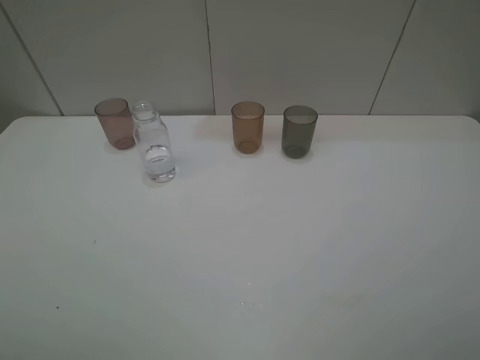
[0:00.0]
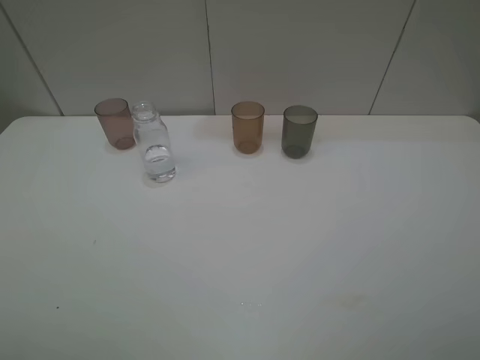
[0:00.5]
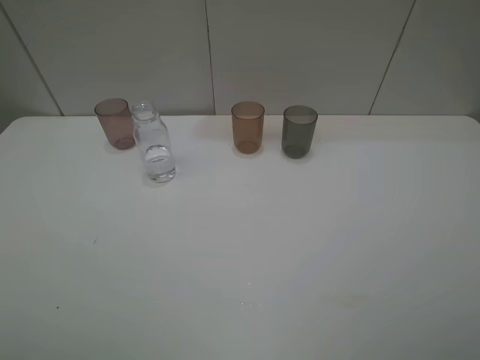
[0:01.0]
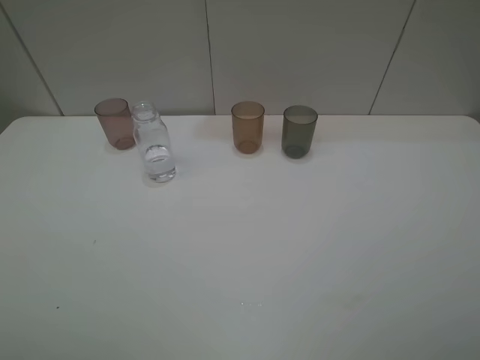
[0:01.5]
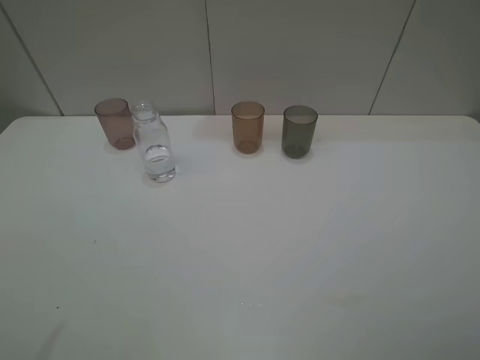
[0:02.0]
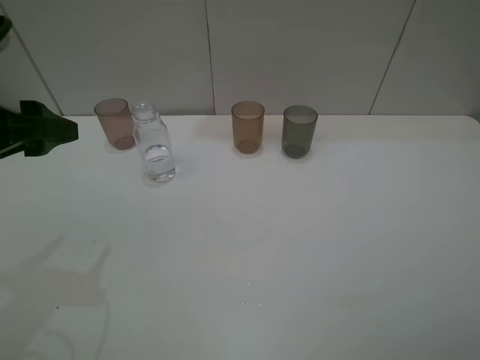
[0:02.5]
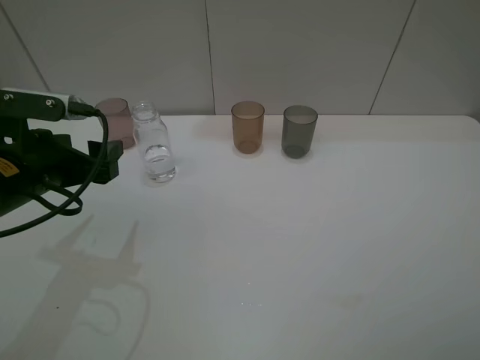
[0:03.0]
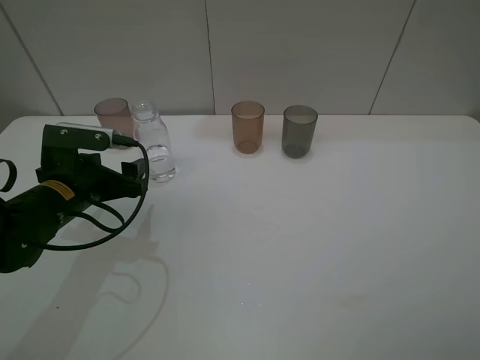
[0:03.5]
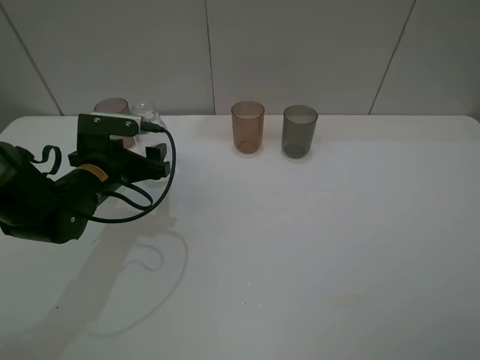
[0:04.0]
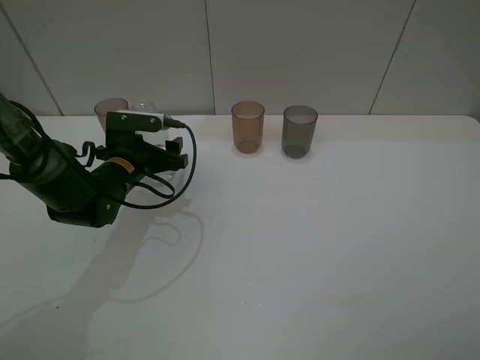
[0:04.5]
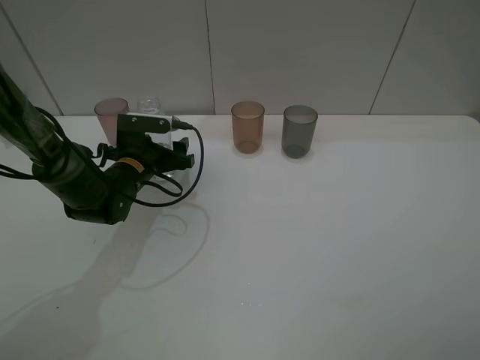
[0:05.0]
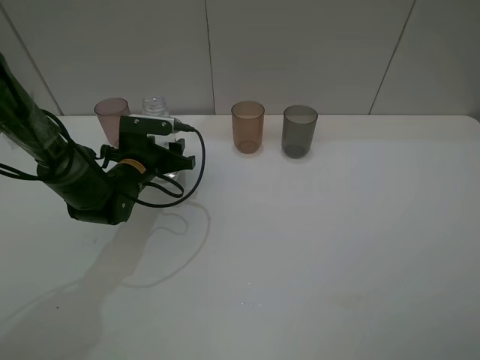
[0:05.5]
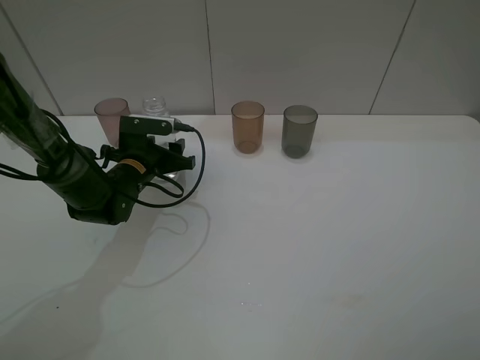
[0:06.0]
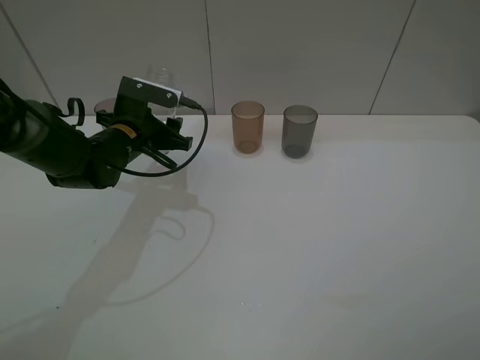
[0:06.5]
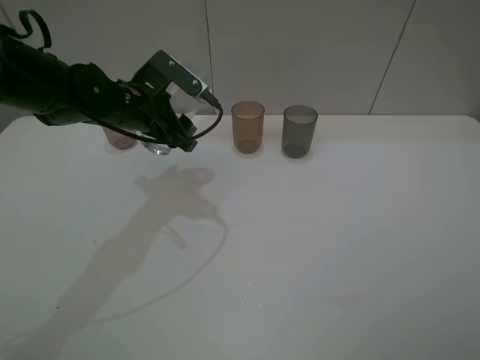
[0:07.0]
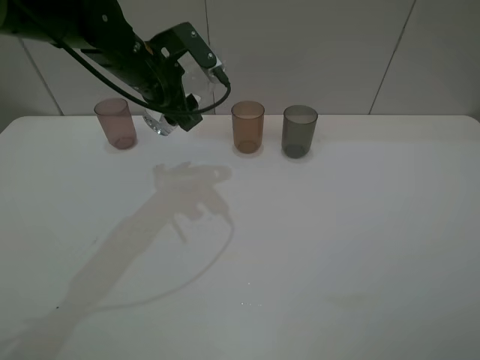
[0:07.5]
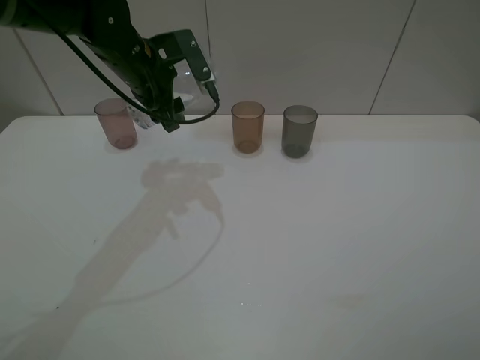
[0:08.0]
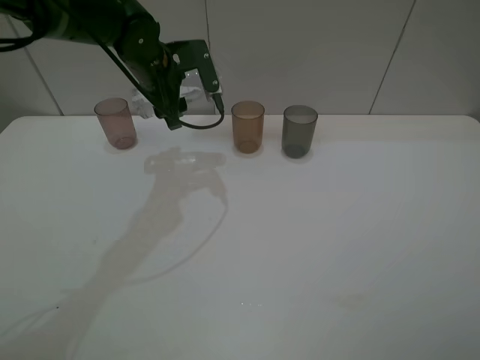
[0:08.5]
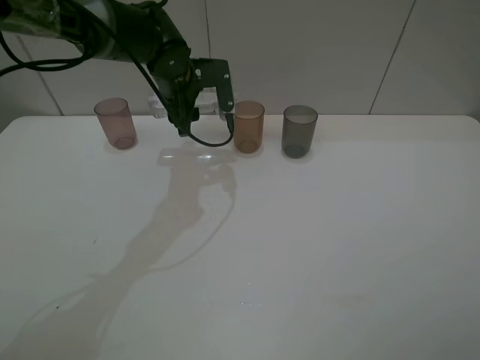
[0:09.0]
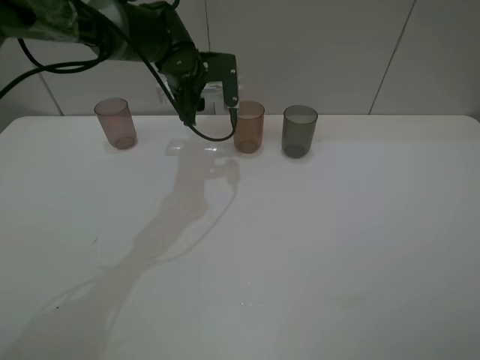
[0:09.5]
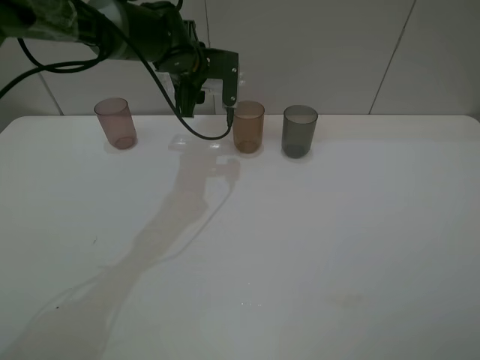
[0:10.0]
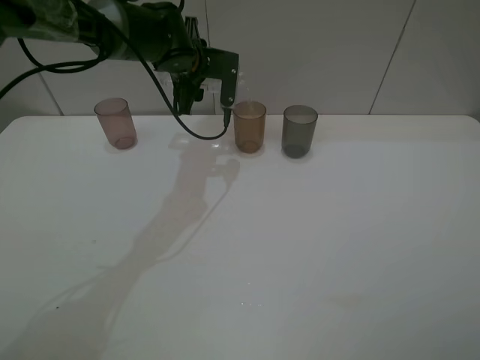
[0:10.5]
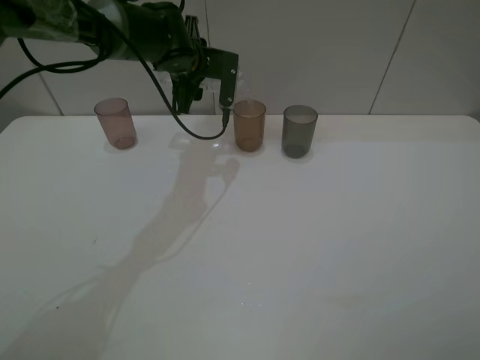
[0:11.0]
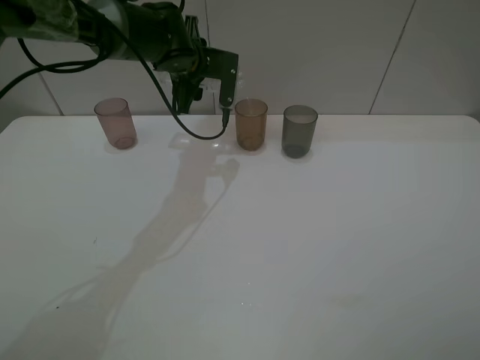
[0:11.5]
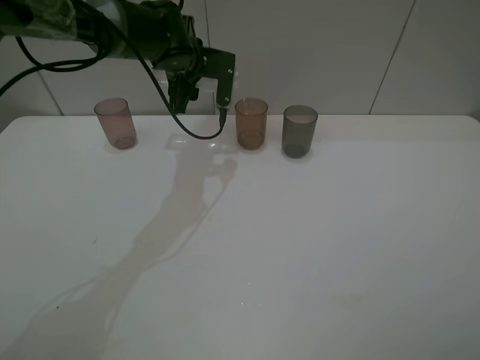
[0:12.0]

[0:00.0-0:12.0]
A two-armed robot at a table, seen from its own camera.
Task of the whole recording: pick up the bottle filled with water and pour water into the middle cup of the three cups.
Step, 0:00.0 to 0:06.0: Grasp the transparent bottle with the left gripper.
0:02.0 to 0:04.0: The left gripper is displaced downward, forward and to the right by approximately 30 cm.
0:04.0 to 0:06.0: The left gripper heads forward, covering roughly 5 cm, and closes.
0:06.0 to 0:08.0: The left gripper heads upward, covering approximately 15 cm.
0:08.0 to 0:10.0: The left gripper shifts approximately 10 cm forward and to the right.
0:10.0 to 0:12.0: The grippers move only a little.

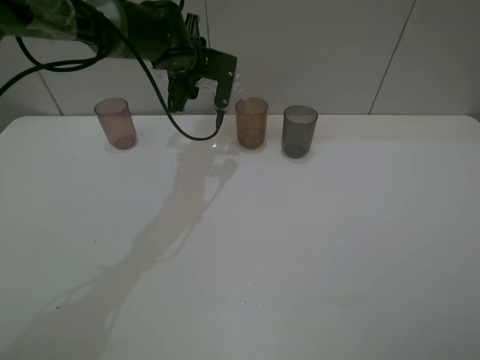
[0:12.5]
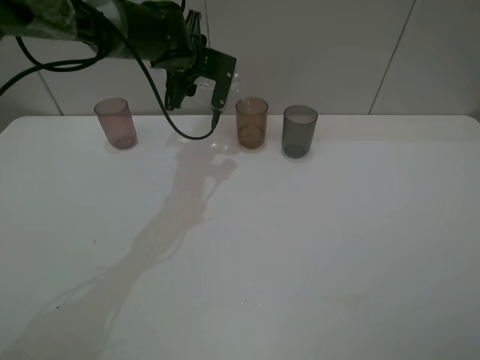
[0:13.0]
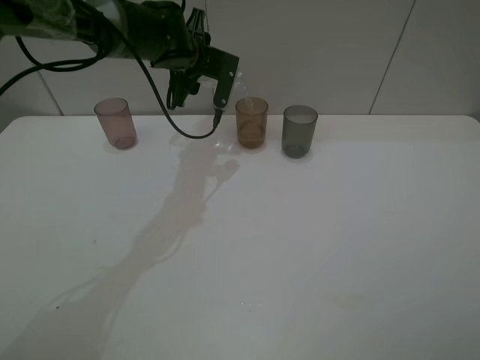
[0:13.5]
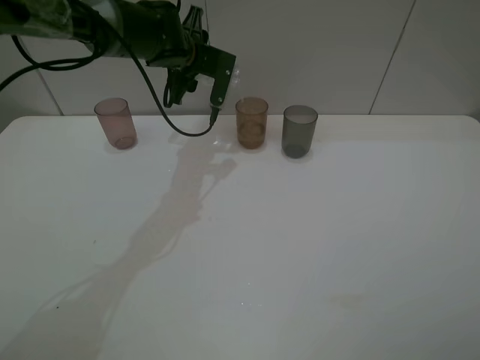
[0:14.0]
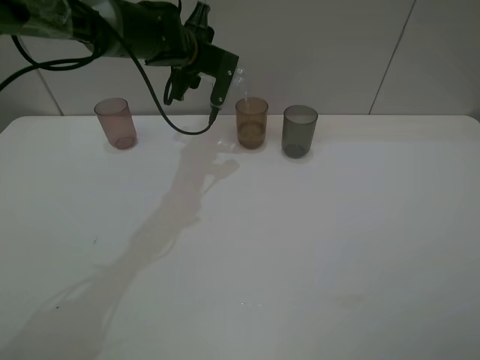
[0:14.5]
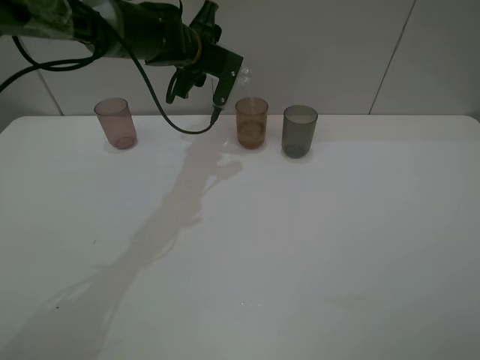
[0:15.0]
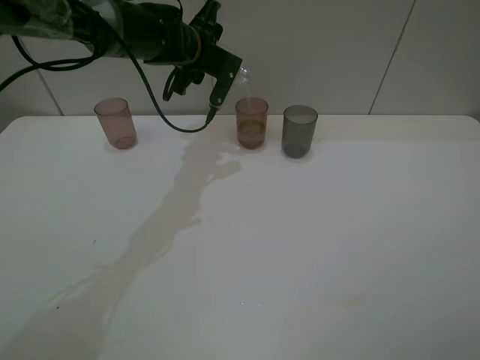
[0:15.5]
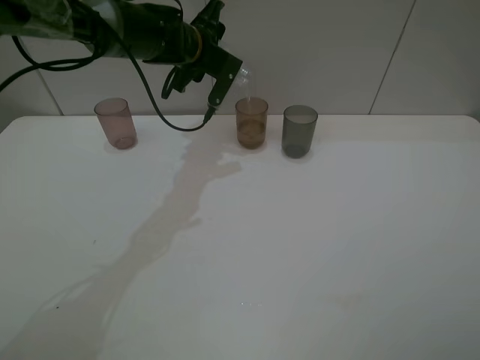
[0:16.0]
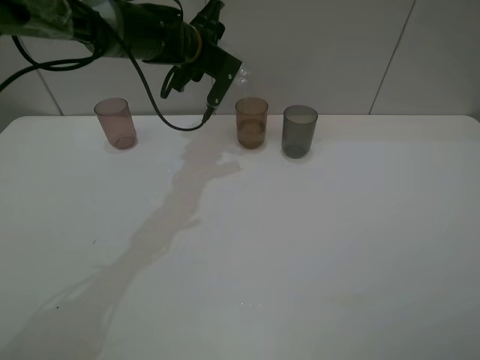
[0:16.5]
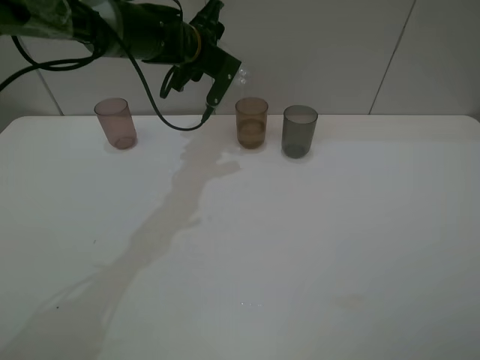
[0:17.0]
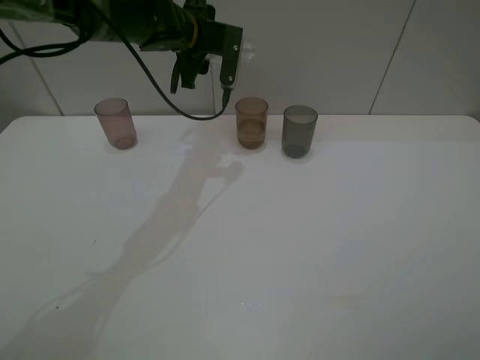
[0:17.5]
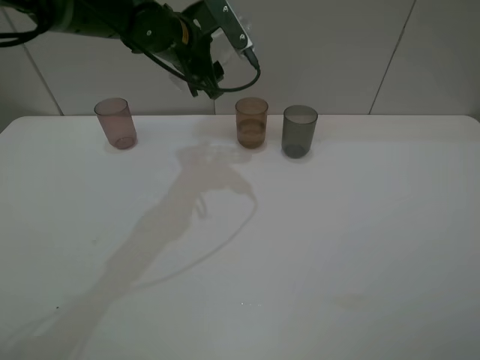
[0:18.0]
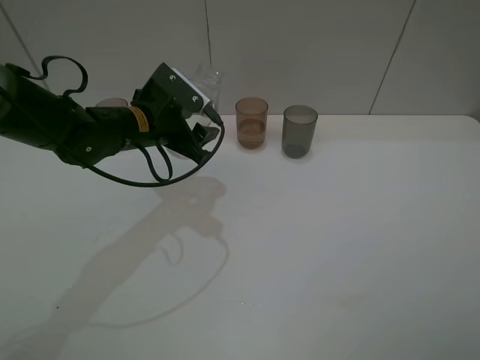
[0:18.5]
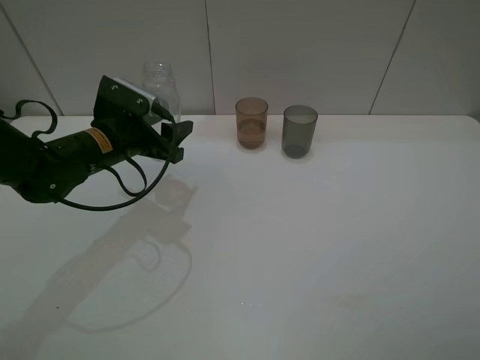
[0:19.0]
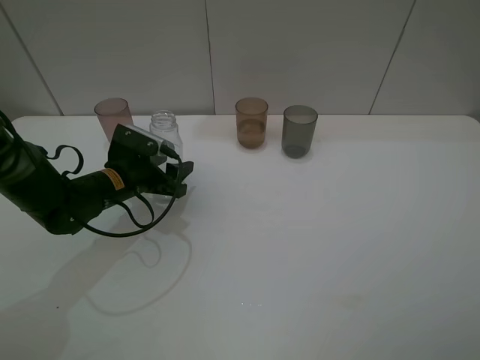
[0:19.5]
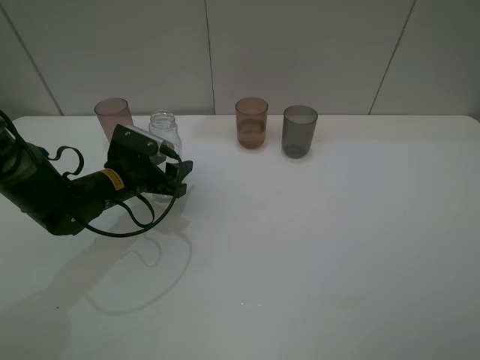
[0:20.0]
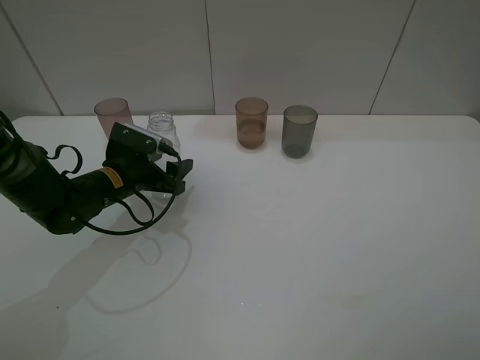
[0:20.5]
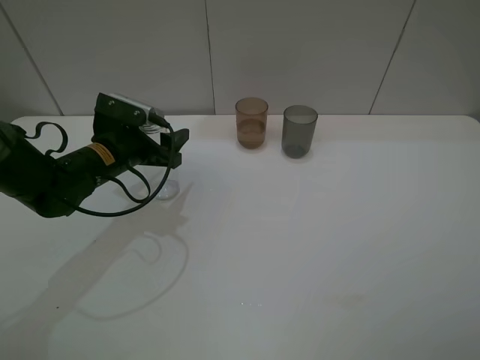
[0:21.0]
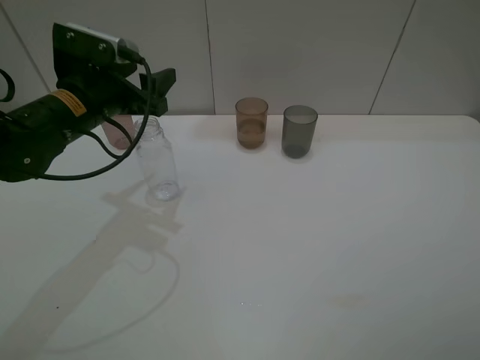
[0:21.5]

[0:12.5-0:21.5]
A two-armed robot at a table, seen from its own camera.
Task of the whole recording: pick up the bottle filled with water and pour water into the middle cup of the three cups.
Step, 0:13.0 to 0:21.0: Place the transparent bottle with the left gripper.
0:12.5 to 0:14.5: There are only small adjustments of the grippers.
0:14.5 to 0:17.0: There are only small adjustments of the grippers.
0:17.0 to 0:19.5: The left gripper shifts some 25 cm backward, downward and to the left.
0:19.5 to 0:21.5: The left gripper shifts roughly 15 cm upward, and opens its fingers.

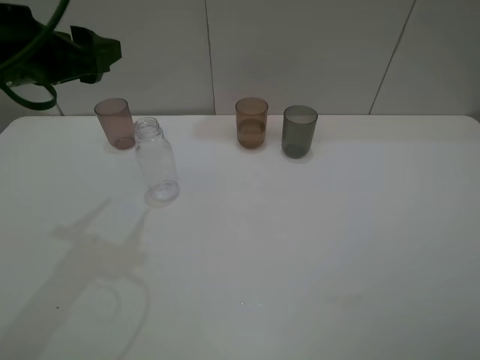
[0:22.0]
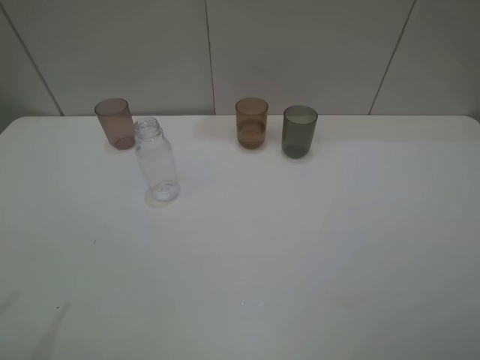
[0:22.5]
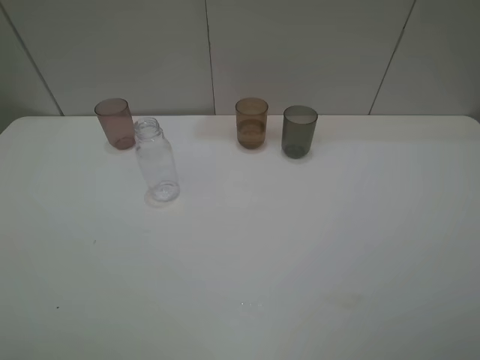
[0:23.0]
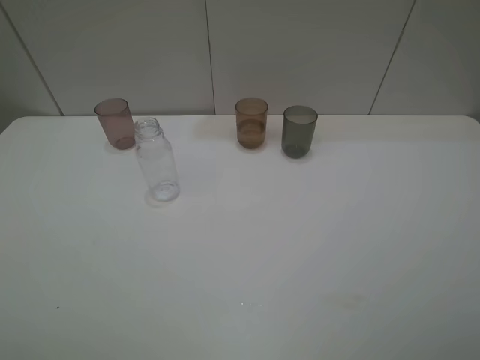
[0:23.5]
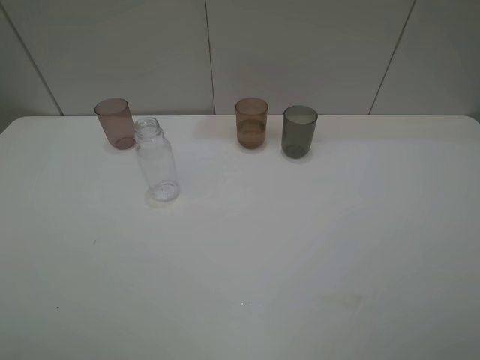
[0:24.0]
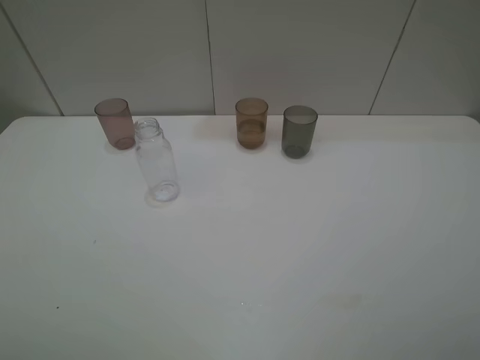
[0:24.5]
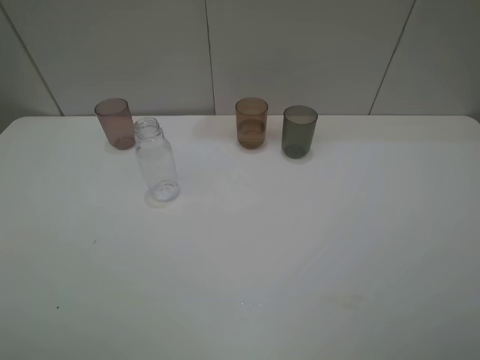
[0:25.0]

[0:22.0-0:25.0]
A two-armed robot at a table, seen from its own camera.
Task of the whole recording: pick up the bottle filled with water and pour water into the middle cup of the three cups.
0:22.0 to 0:23.5: The left gripper shifts approximately 30 cm backward.
